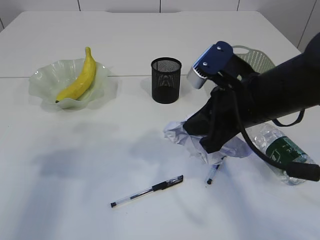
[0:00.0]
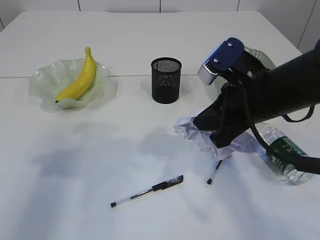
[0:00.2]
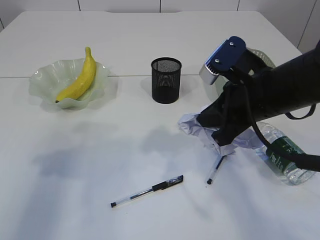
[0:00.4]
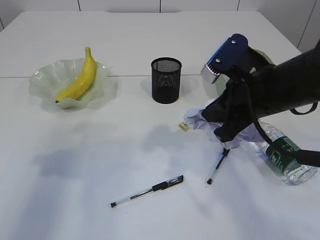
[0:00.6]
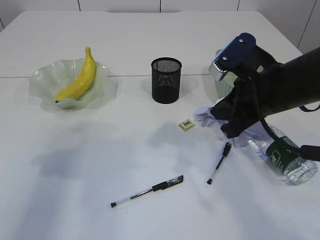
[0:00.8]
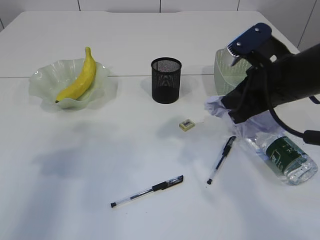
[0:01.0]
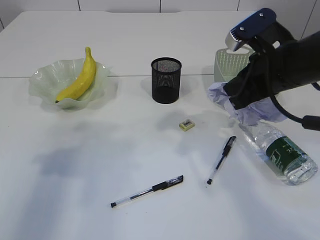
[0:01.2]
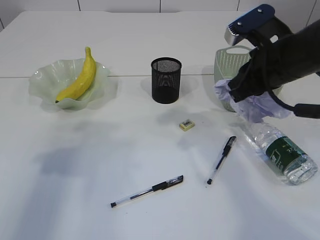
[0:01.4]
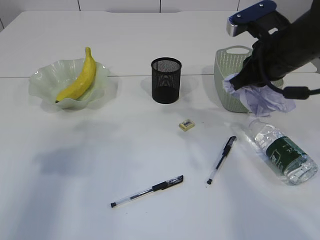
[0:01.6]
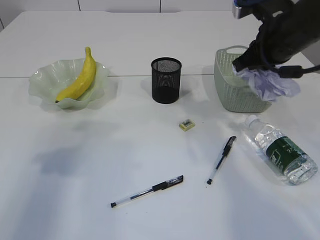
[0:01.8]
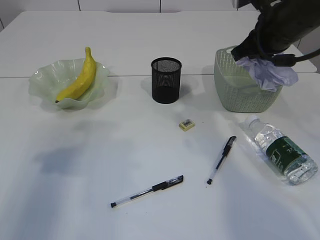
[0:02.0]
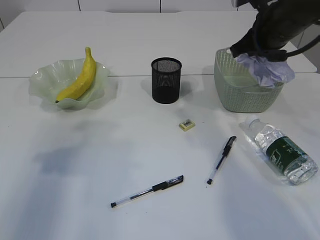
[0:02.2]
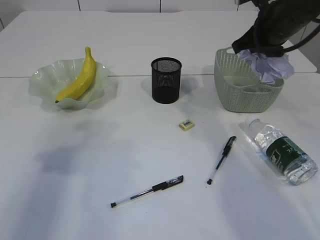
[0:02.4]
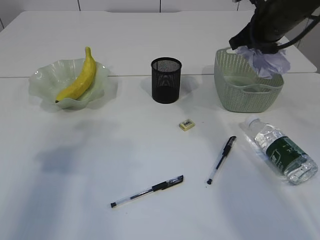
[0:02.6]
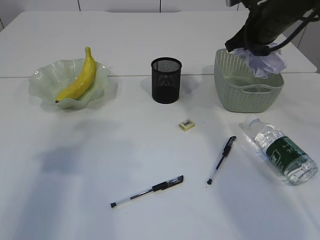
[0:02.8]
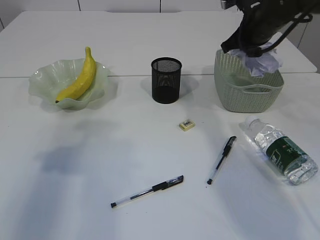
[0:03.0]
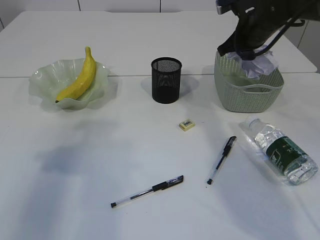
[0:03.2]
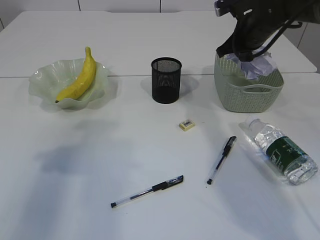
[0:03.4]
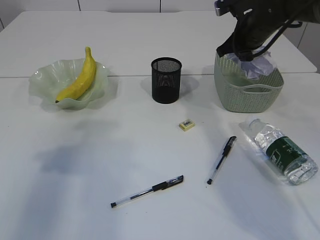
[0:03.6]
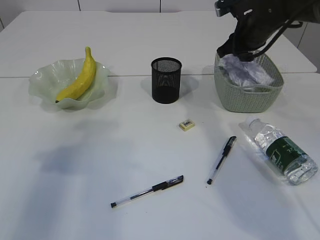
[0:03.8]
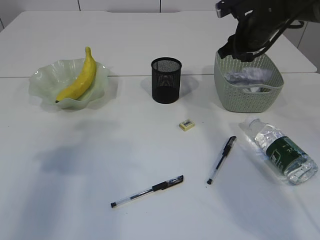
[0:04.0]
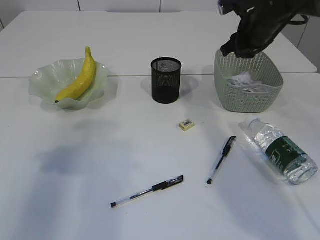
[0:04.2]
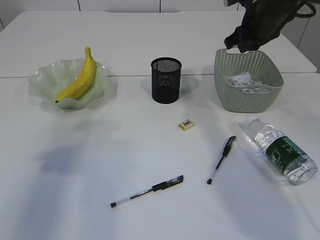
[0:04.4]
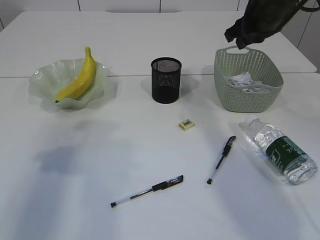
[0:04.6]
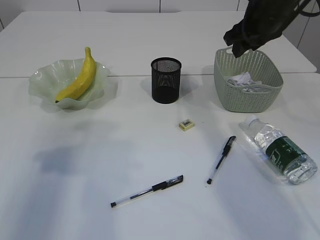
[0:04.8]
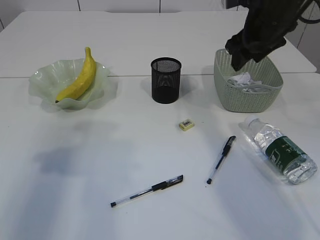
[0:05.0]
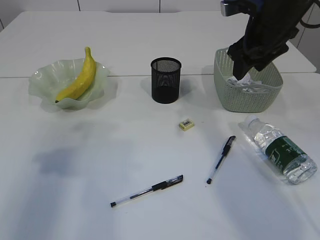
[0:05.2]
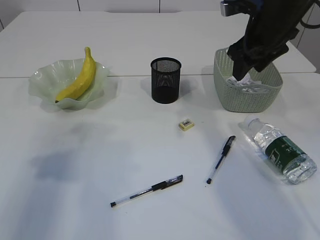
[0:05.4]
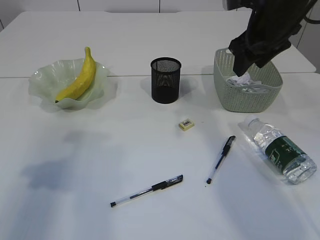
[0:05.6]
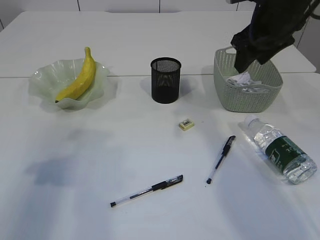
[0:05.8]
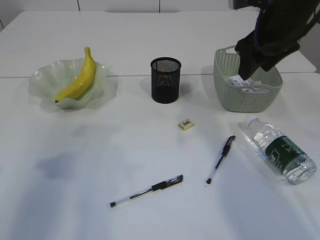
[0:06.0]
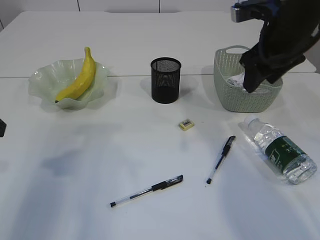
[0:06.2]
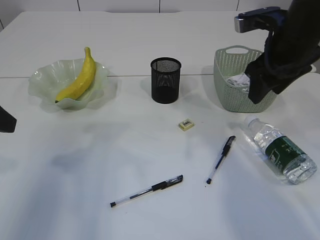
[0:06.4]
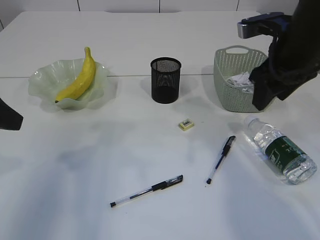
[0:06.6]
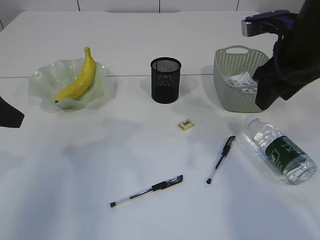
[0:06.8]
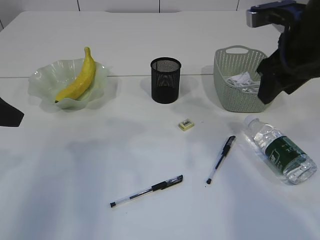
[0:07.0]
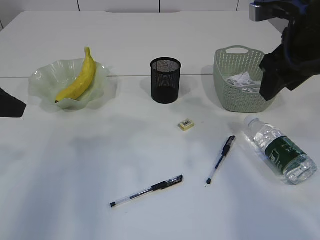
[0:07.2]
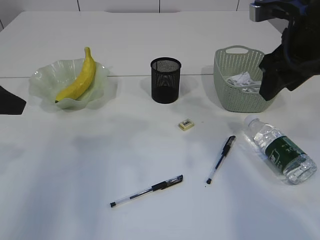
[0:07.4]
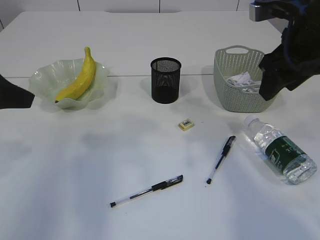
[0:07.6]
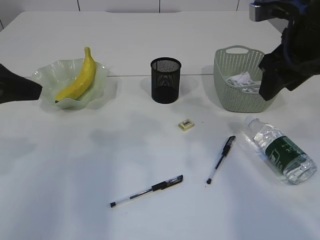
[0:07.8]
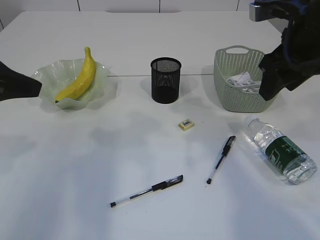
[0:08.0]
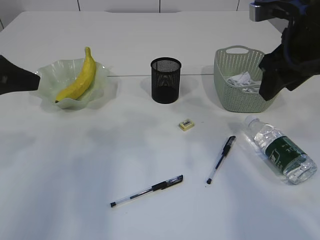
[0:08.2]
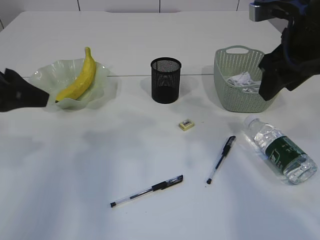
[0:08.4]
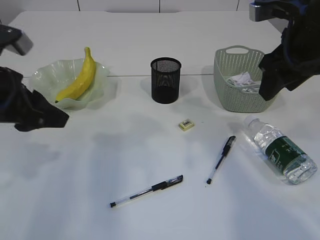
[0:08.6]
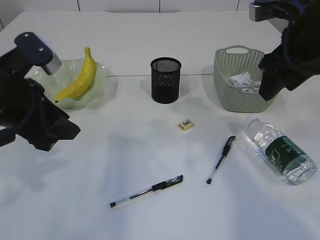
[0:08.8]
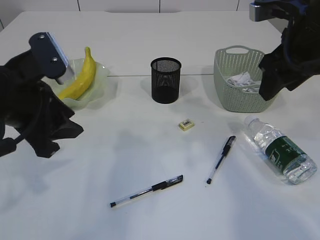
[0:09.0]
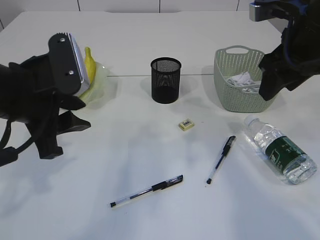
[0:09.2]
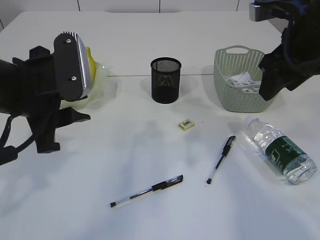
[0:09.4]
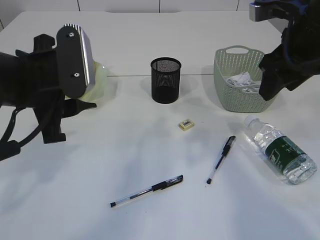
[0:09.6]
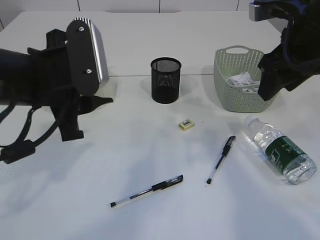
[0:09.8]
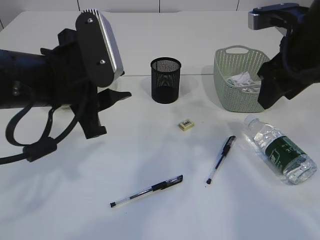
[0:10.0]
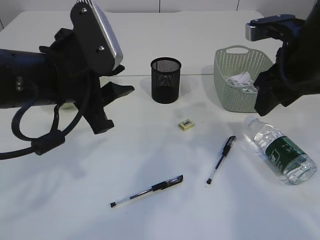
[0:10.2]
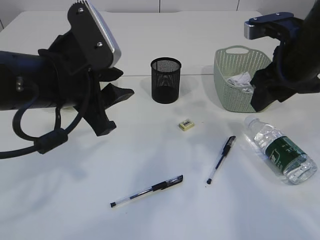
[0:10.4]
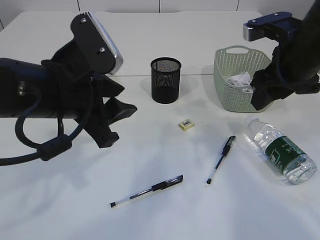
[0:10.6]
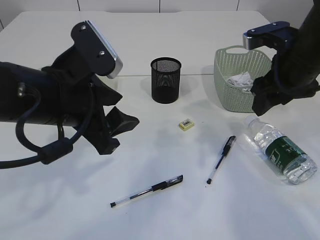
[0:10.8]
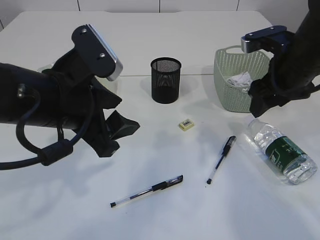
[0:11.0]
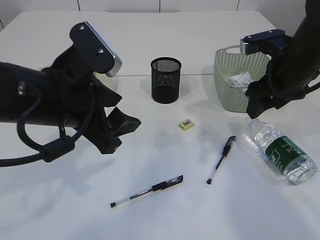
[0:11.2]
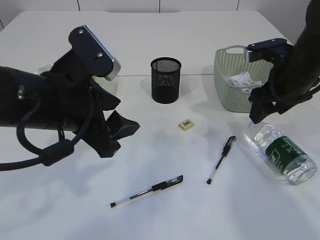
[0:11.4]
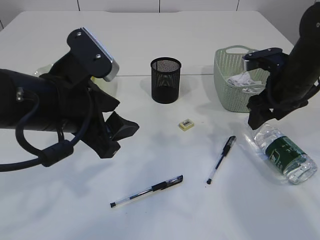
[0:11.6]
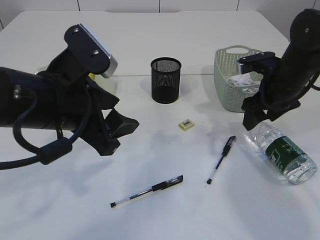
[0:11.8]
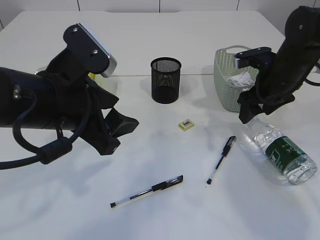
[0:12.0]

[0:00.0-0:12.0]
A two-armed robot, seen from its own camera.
Step, 0:00.0 to 0:04.4: Place the waste paper in the basket.
0:00.0 to 0:01.6: The right gripper shifts approximately 10 cm forward and to the right.
0:01.6 to 0:03.0: The right gripper heads forward, covering some 10 cm.
0:03.0 to 0:04.4: The right gripper opens its fingers.
0:04.4 to 0:06.0: The right gripper heads backward, covering about 10 cm.
0:06.0 to 0:07.6: The right gripper is displaced backward by about 5 cm.
0:07.6 to 0:09.0: The left gripper is displaced to the right by about 5 cm.
0:09.0 to 0:10.4: The left gripper travels to the right by some 5 cm.
0:10.4 to 0:12.0: The right gripper travels downward and forward by approximately 10 cm.

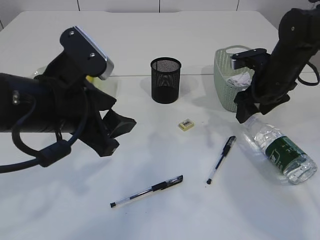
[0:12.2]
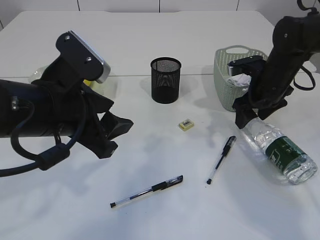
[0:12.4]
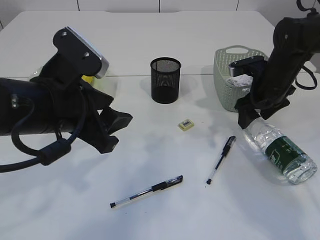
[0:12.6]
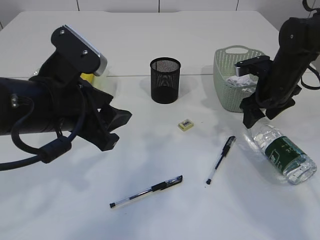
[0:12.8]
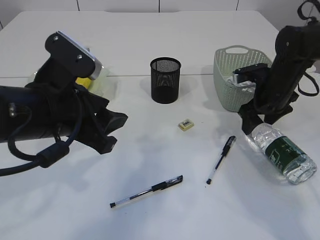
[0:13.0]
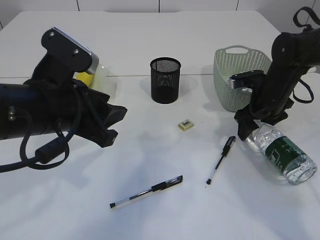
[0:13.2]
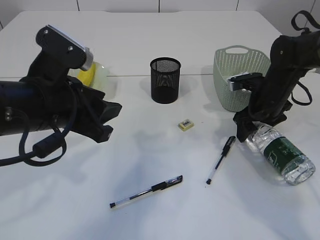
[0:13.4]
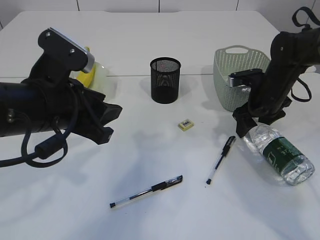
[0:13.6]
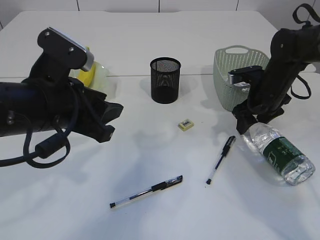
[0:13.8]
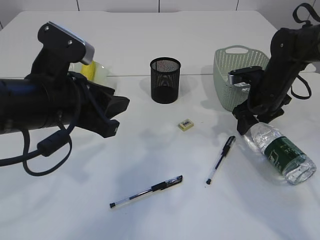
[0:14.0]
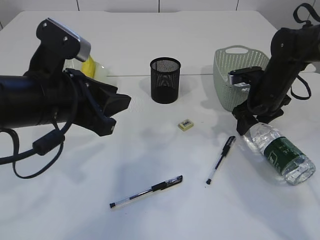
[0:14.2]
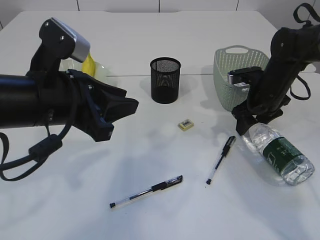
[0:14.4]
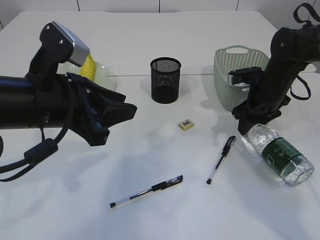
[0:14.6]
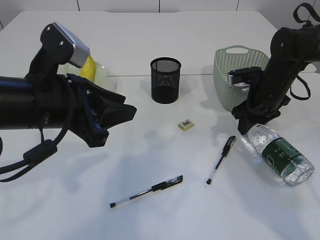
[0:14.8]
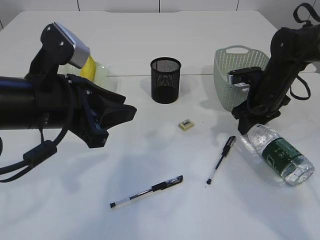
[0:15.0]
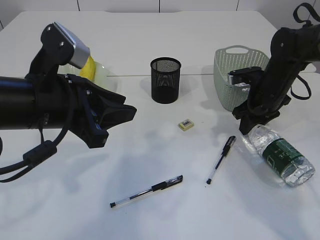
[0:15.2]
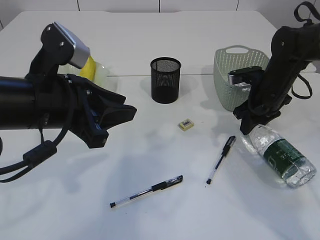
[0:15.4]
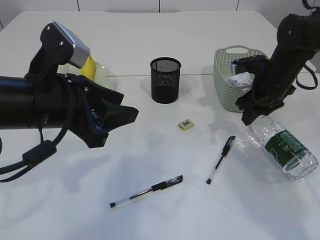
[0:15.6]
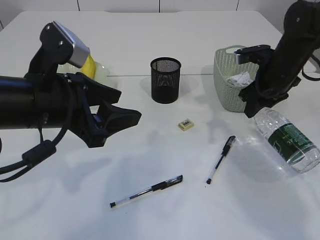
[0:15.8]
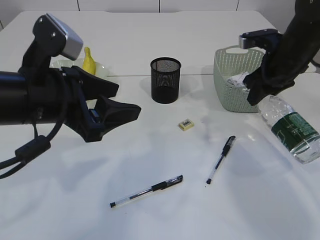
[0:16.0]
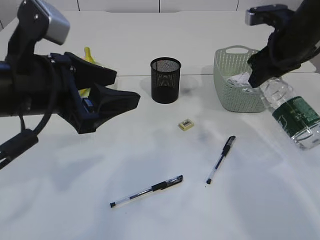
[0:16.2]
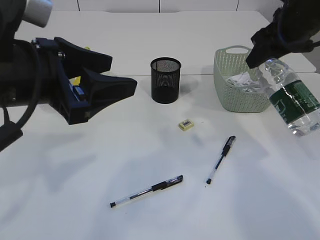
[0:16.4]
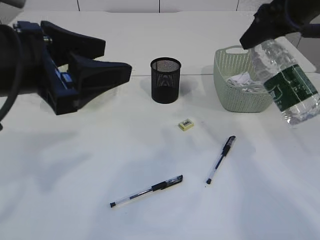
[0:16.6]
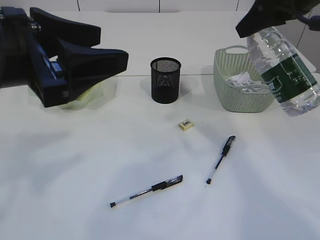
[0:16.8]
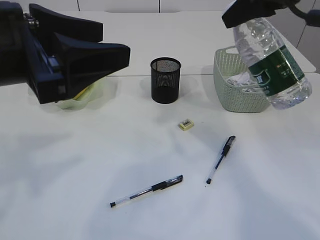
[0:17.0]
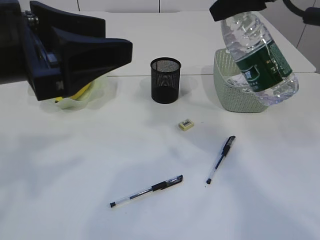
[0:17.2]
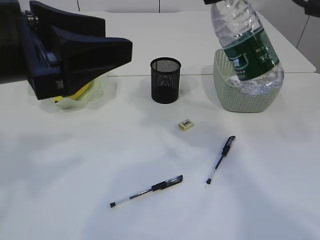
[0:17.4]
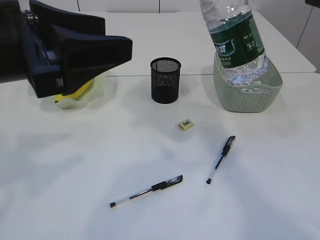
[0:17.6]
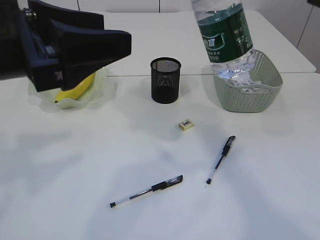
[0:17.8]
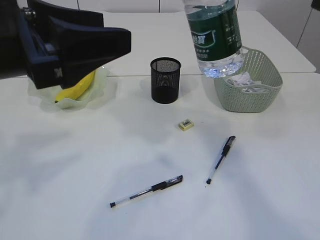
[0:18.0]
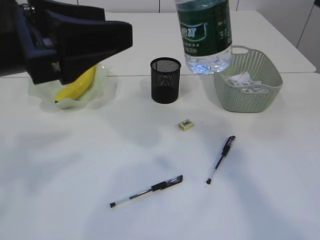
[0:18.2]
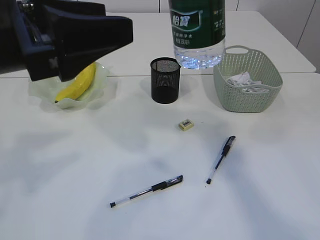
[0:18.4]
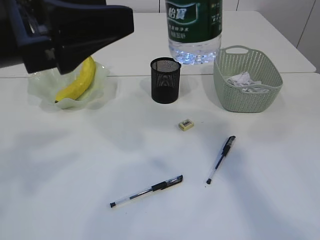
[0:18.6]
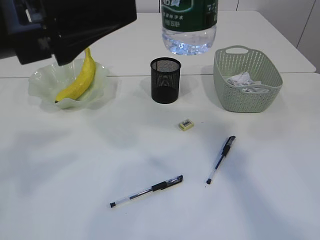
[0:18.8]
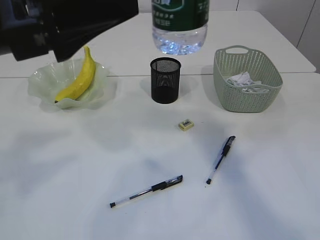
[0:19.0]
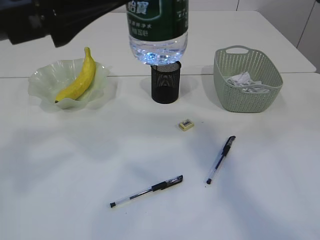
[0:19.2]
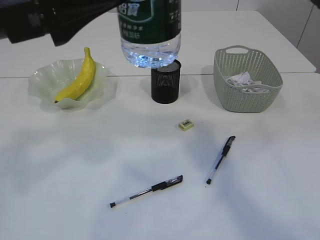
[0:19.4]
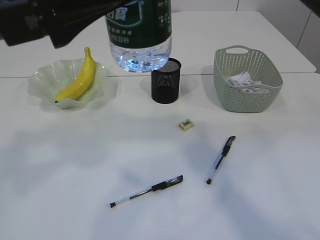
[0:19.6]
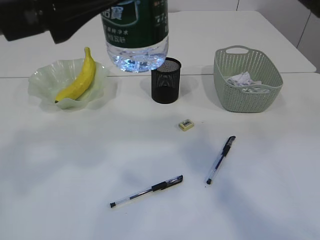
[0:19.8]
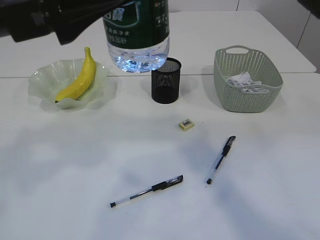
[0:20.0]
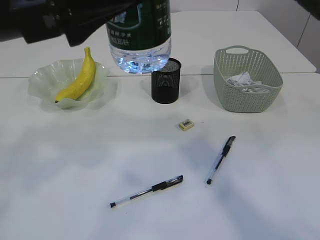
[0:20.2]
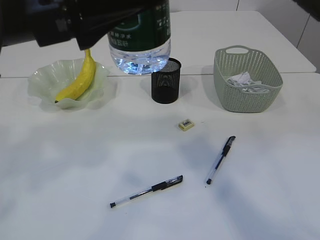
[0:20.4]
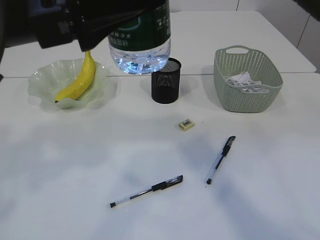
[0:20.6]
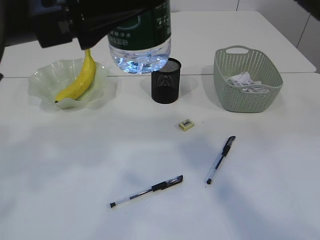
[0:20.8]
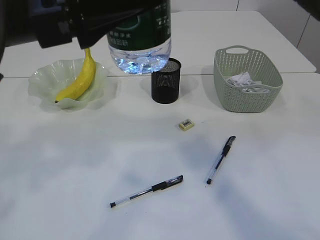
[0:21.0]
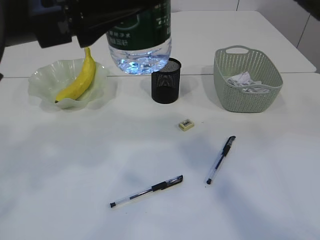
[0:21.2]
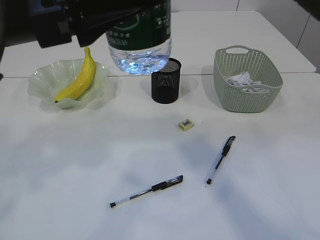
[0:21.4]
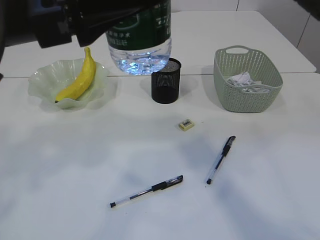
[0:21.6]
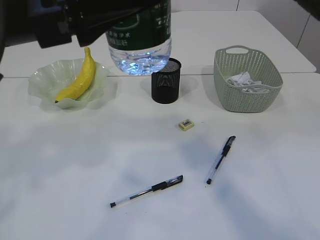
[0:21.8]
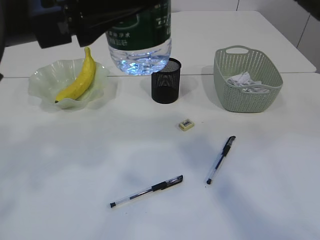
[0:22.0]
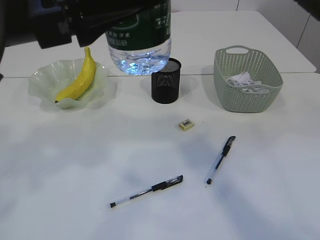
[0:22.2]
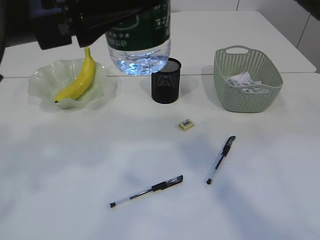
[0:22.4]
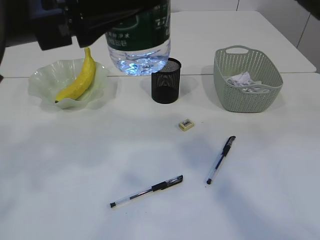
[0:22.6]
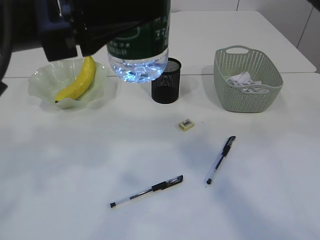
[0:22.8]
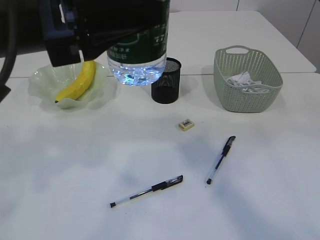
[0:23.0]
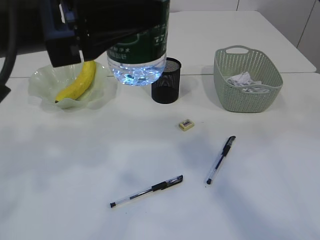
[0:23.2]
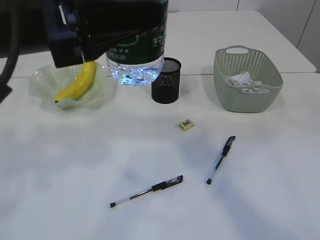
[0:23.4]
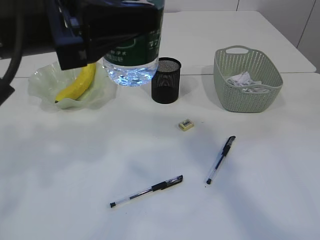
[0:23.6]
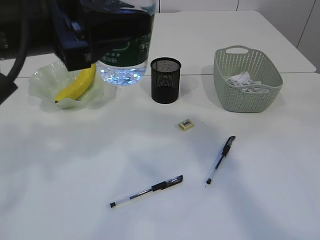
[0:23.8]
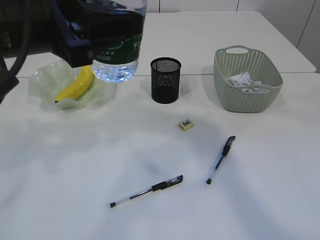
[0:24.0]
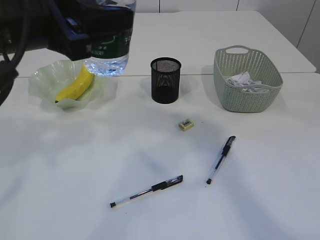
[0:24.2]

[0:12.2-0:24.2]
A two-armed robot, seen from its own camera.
Step, 0:12.2 to 0:16.2: Pick up the bottle with the right arm.
Step, 0:16.4 to 0:24.2: transfer the bottle to the left arm.
0:12.2 to 0:13.8: The grippers make only small movements.
0:13.8 to 0:15.2: The right gripper closes its fingers.
0:15.2 to 0:16.6: The right gripper heads upward, covering some 20 cm, while the left gripper is displaced upward by about 5 cm, and opens its fingers.
0:16.6 to 0:18.2: The right gripper travels upward, backward and to the left by approximately 15 cm.
0:18.2 to 0:19.8: The right gripper goes roughly 5 cm to the left.
0:19.8 to 0:21.2: The grippers move only a little.
0:21.2 to 0:22.6: Both grippers stay about where they are.
0:22.6 to 0:24.2: The right gripper ends up about 5 cm from where it was.
